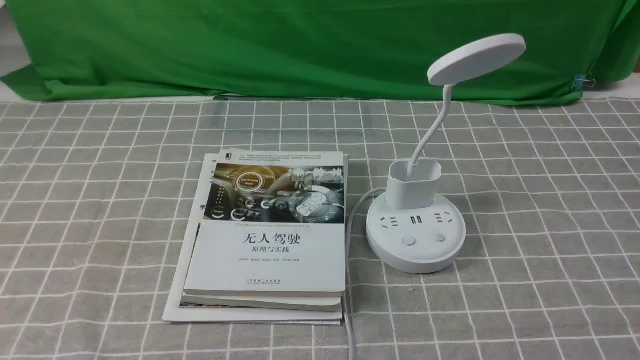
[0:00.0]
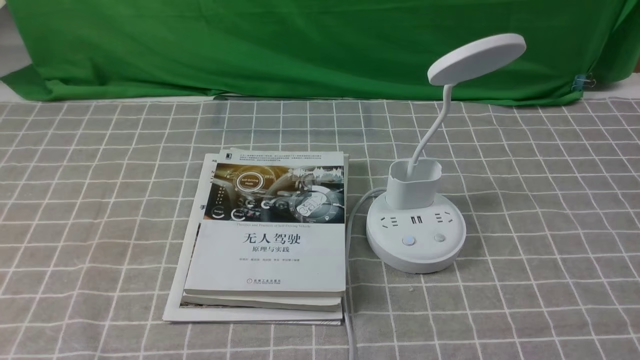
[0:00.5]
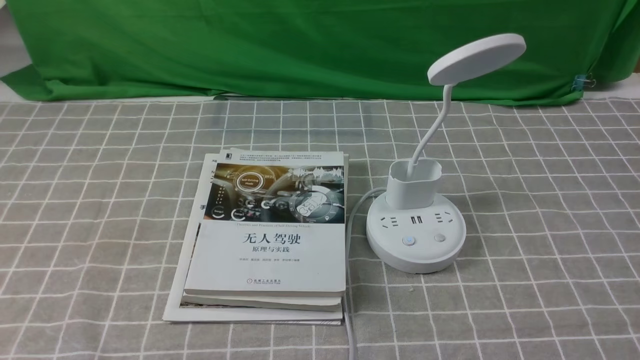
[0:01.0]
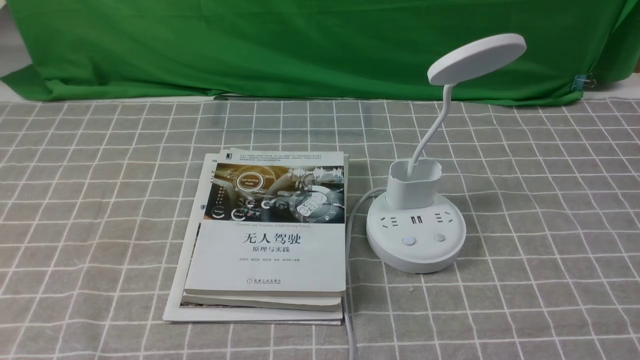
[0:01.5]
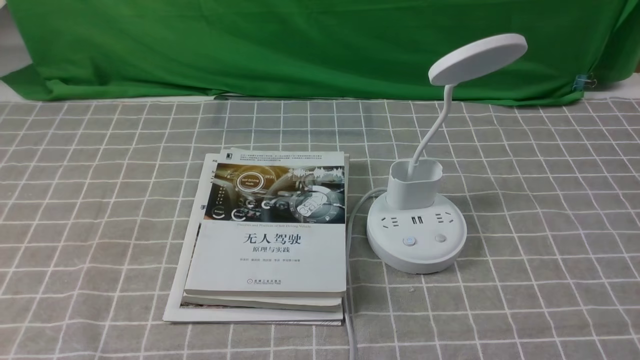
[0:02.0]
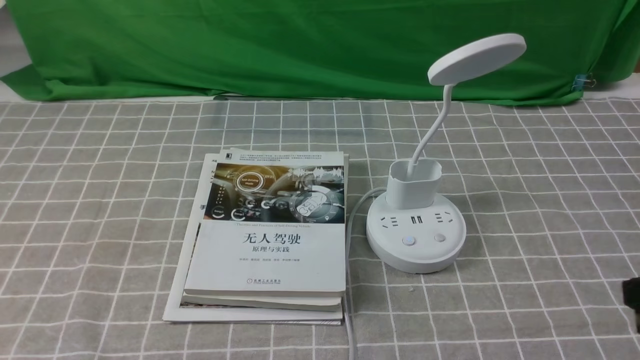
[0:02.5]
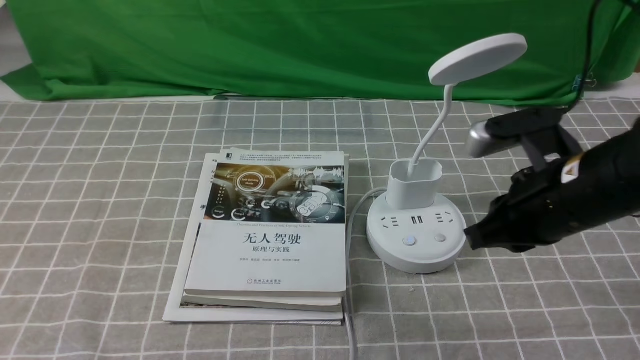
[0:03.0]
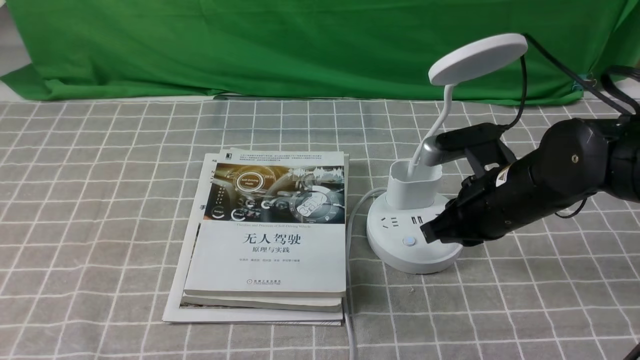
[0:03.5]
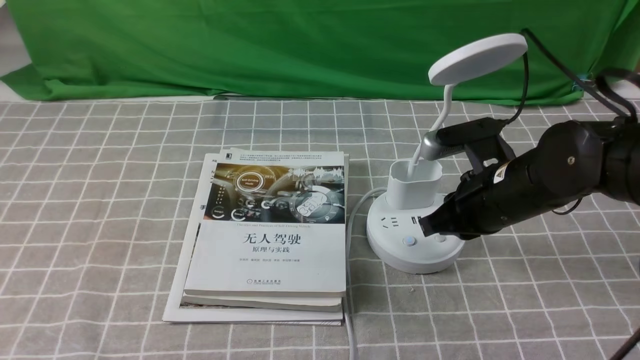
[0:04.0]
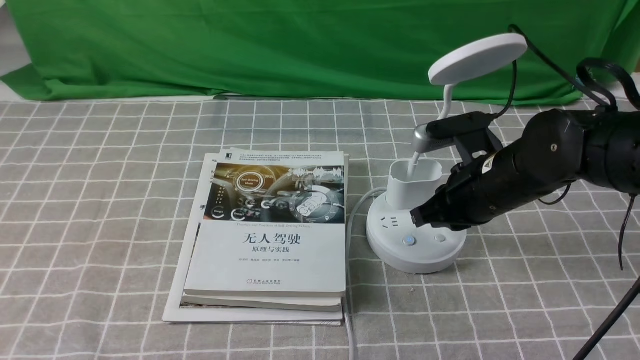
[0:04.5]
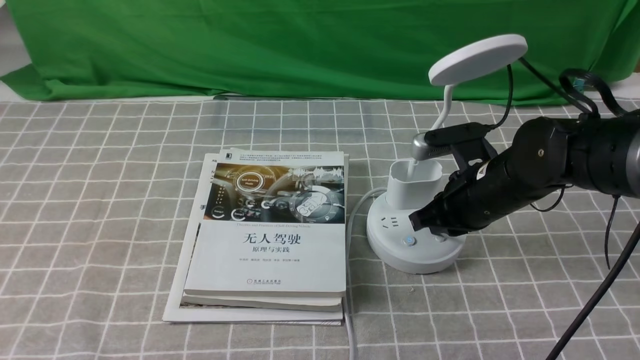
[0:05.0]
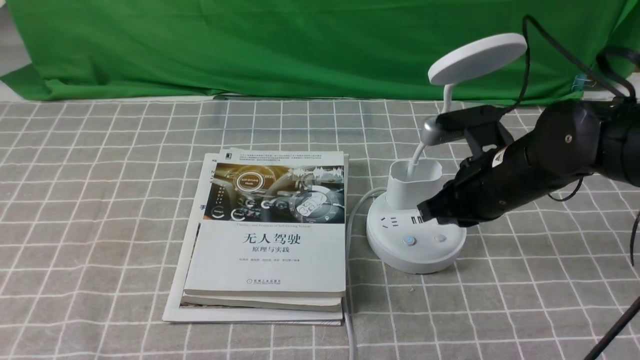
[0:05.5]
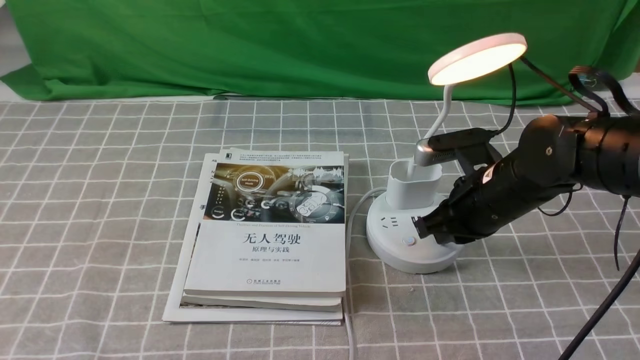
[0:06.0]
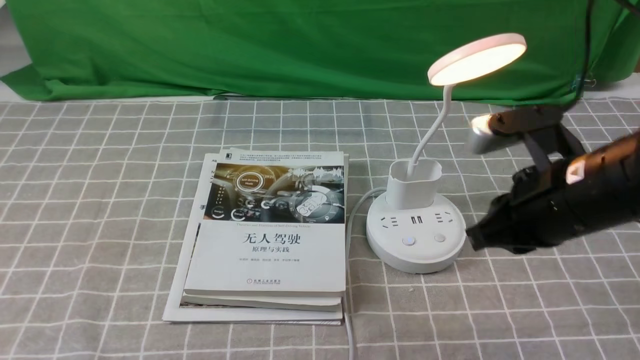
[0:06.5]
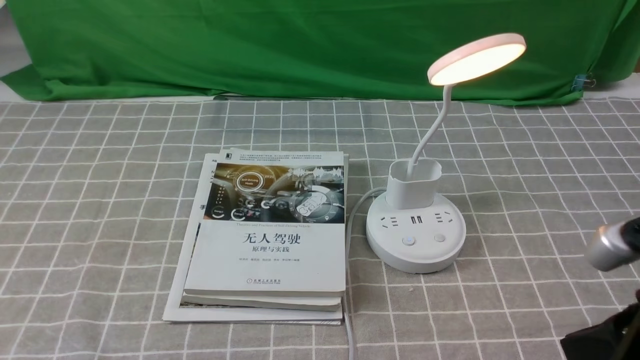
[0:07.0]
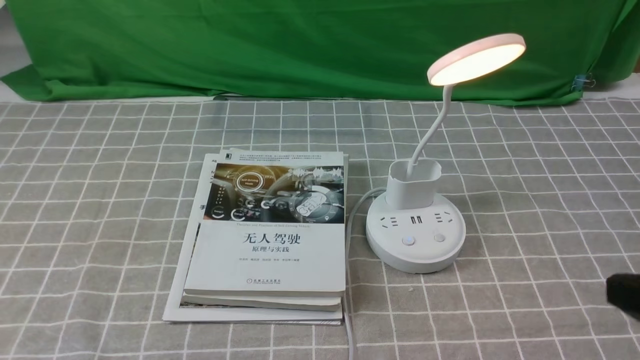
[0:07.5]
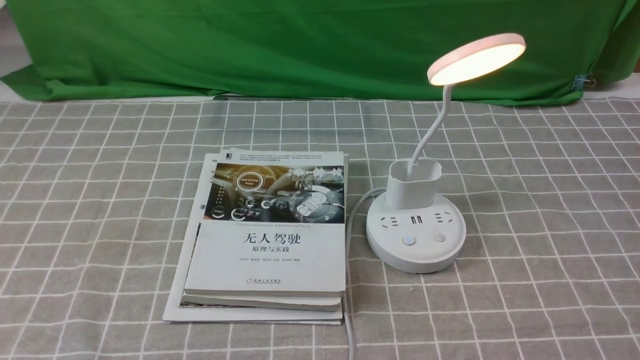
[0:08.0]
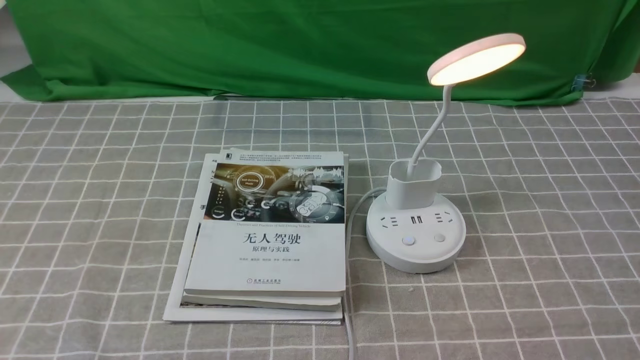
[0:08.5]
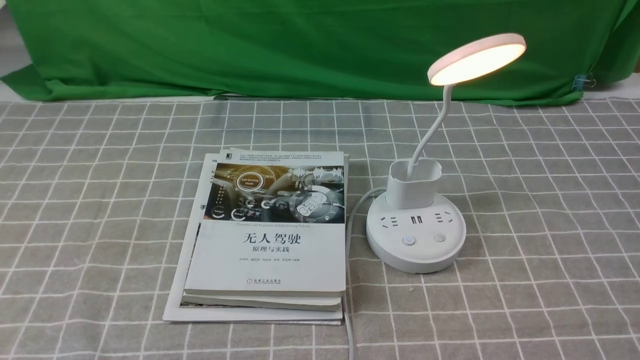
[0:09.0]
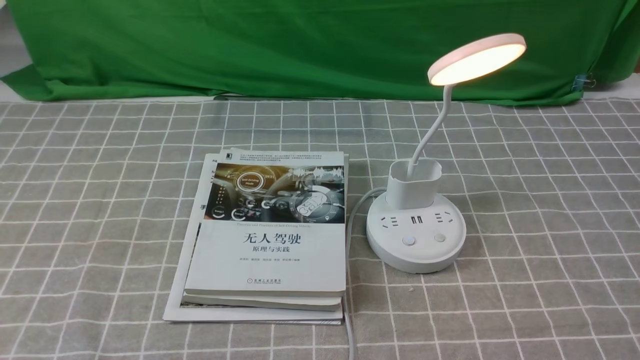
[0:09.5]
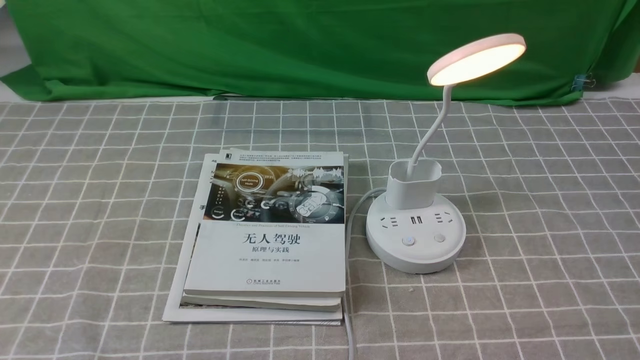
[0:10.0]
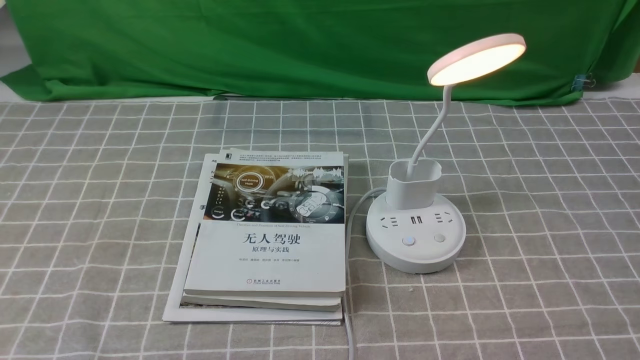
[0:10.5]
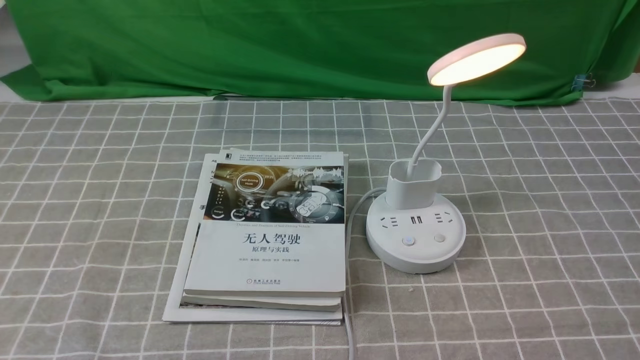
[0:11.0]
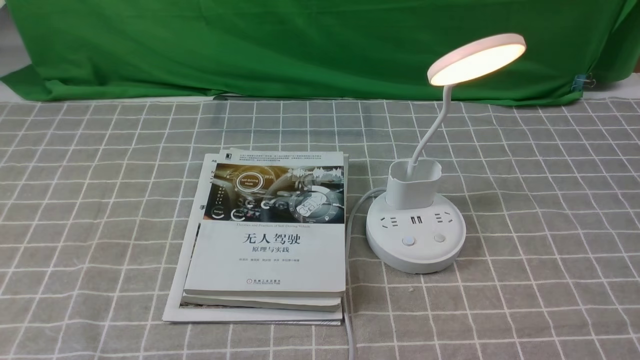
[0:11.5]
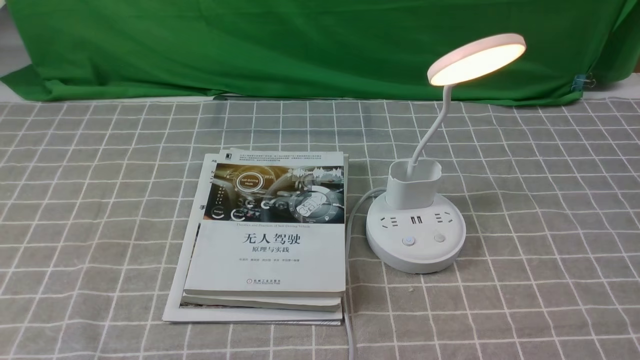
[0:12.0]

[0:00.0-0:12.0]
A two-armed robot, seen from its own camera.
Step, 0:00.0 to 0:06.0: use the right arm to press the button switch on the lamp holder.
0:02.0 to 0:04.0: The right gripper heads forward and to the left, covering about 30 cm, and closes up.
0:04.0 to 0:06.0: The grippers move only a little.
0:06.0 to 0:08.0: The right gripper goes roughly 30 cm backward and to the right.
